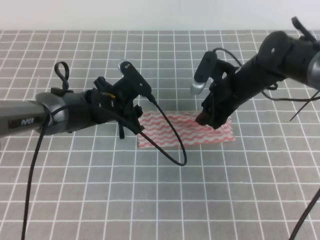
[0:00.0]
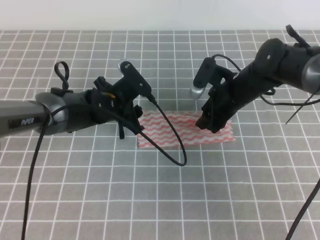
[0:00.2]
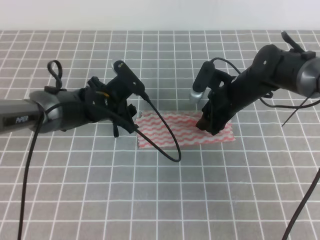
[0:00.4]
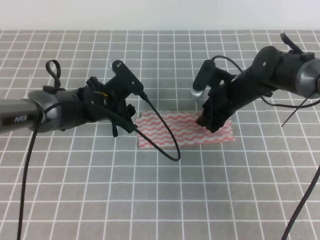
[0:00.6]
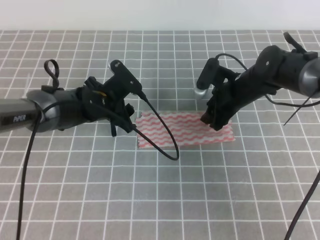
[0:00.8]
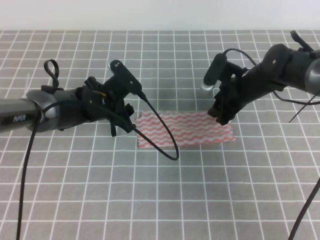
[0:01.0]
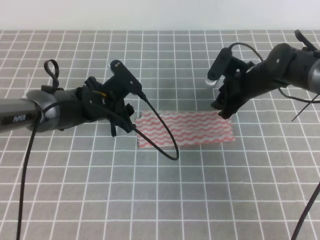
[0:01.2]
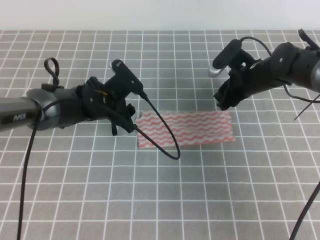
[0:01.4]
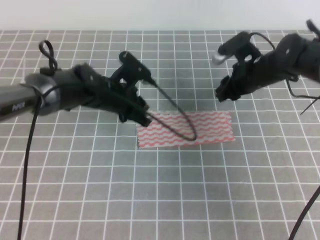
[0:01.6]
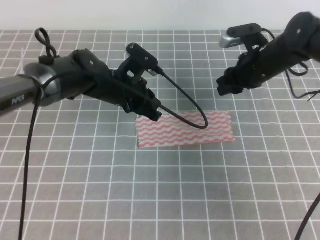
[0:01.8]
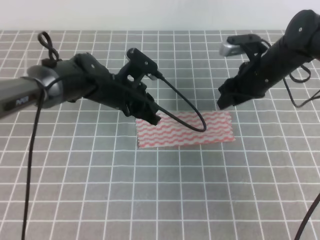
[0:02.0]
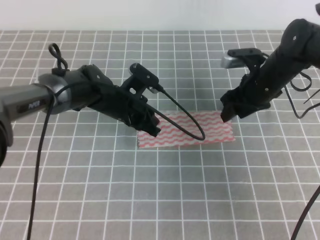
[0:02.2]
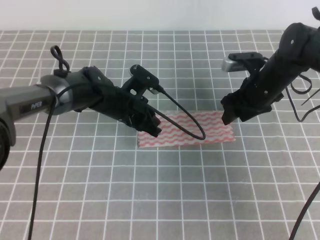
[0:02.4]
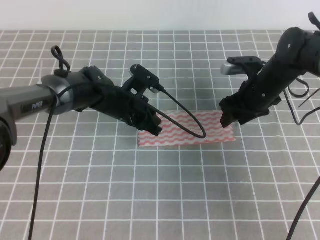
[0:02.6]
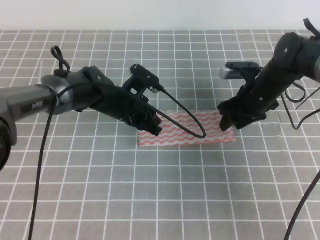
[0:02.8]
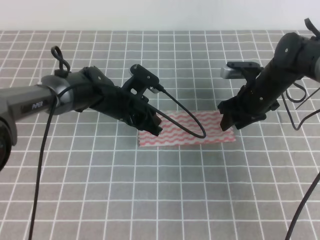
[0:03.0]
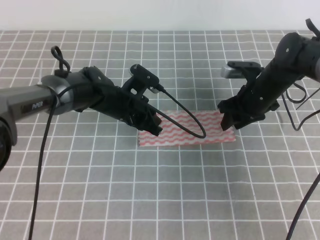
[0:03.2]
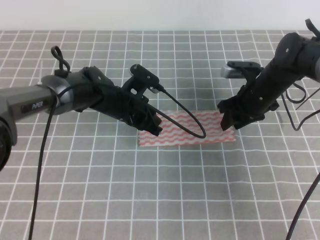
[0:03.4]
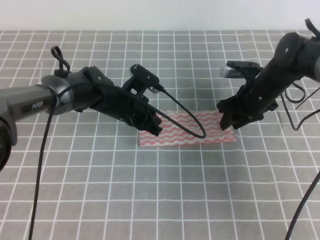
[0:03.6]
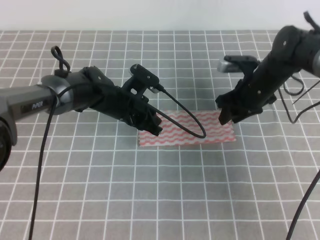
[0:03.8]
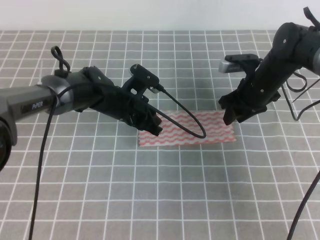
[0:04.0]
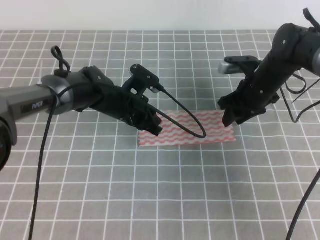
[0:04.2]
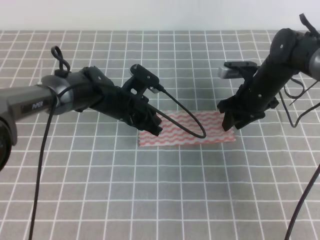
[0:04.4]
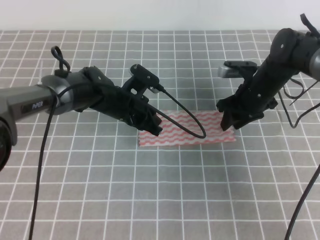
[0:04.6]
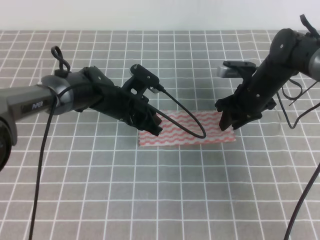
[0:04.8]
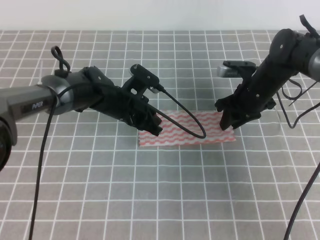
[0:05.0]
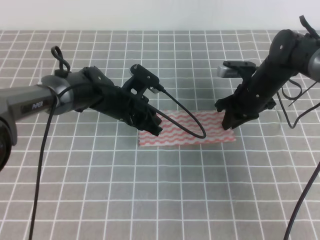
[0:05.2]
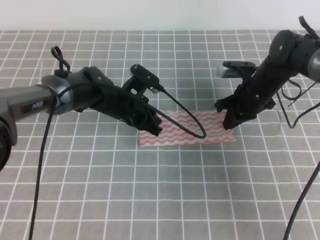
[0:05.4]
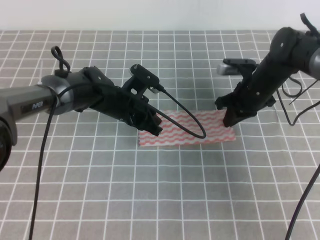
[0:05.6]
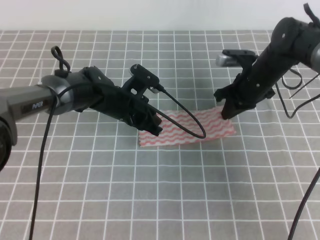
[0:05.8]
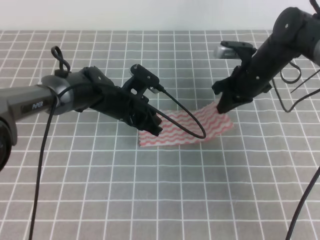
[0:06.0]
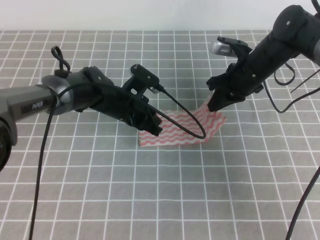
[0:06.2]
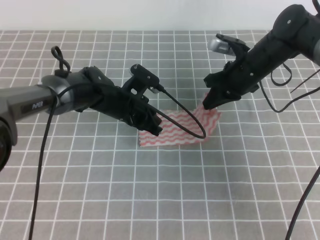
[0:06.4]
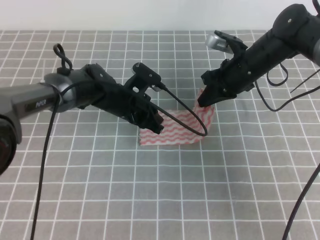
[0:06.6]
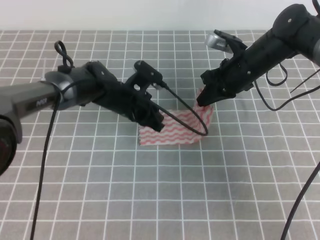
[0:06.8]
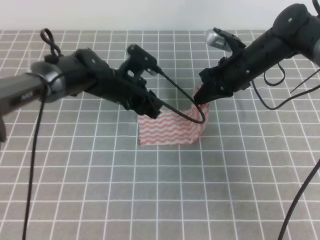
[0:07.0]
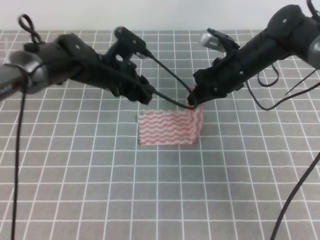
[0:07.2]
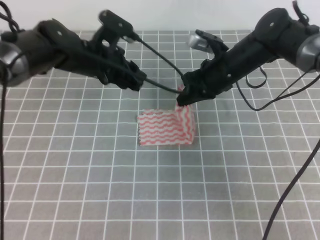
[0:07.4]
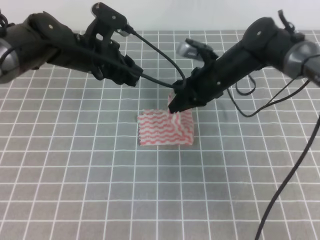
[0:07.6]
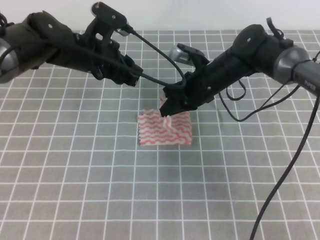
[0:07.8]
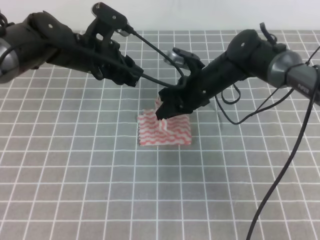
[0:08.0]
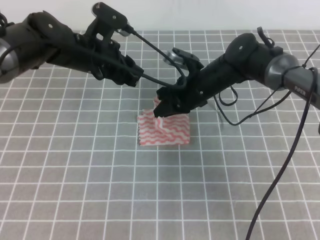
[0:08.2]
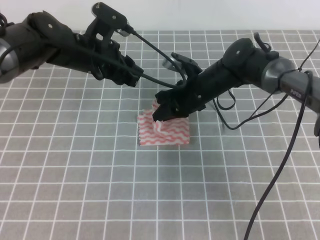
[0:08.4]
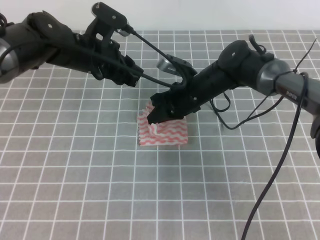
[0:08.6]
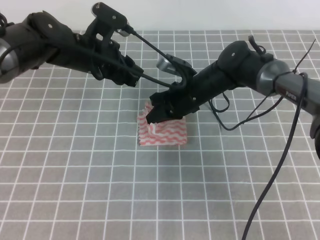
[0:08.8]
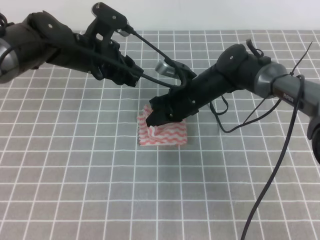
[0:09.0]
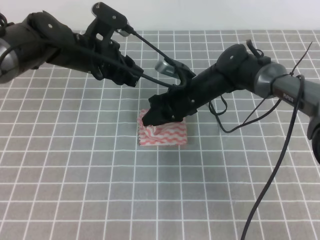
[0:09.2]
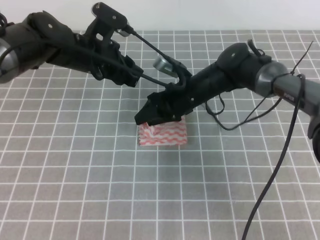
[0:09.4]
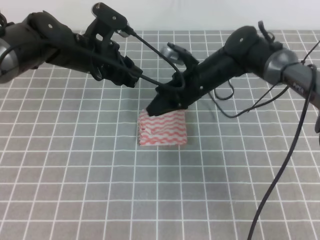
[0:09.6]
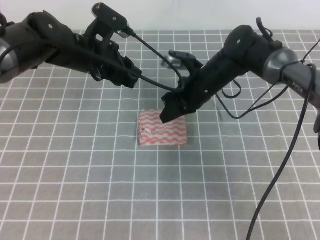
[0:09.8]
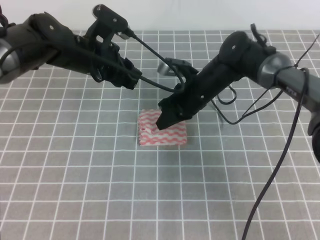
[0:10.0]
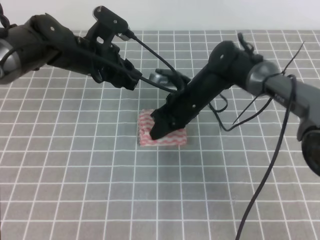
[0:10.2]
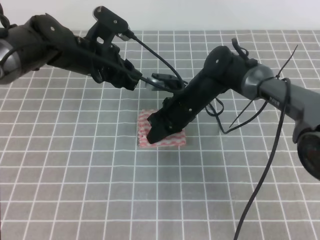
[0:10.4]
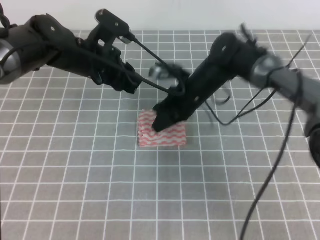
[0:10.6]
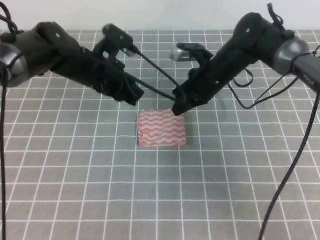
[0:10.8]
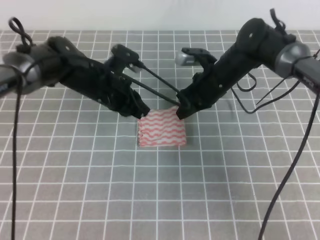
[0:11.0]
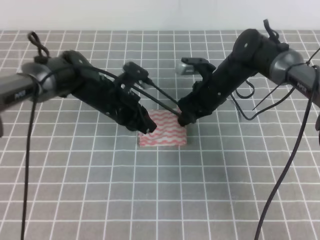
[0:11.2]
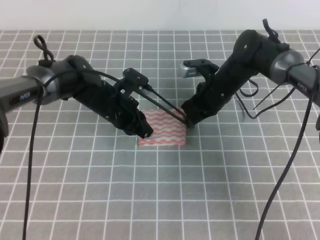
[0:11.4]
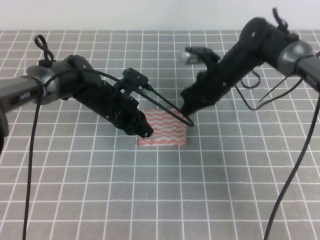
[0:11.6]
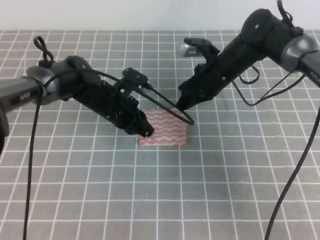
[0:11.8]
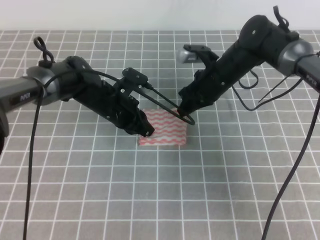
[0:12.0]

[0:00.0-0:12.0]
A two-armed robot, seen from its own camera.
0:00.0 to 0:01.6: The left gripper closes up; the right gripper moves about 5 cm.
0:03.0 to 0:04.4: The grippers move only a little.
0:04.4 to 0:06.0: The right gripper closes its fingers.
0:06.0 to 0:07.6: The right gripper travels to the left by roughly 5 cm. The left gripper heads upward, covering some 15 cm, and opens up.
0:07.6 to 0:09.0: The right gripper moves some 5 cm.
0:09.0 to 0:10.4: The right gripper opens, then closes once more.
0:10.4 to 0:12.0: The left gripper is displaced downward by approximately 10 cm, and closes up. The right gripper travels to the right by about 5 cm.

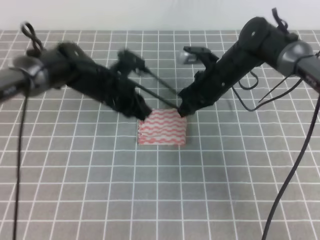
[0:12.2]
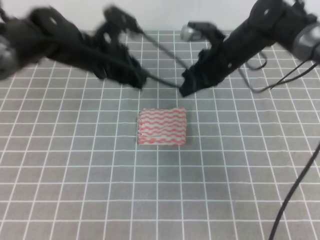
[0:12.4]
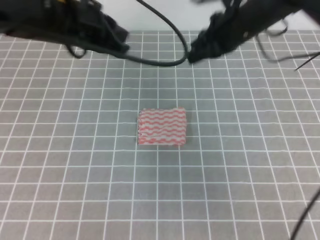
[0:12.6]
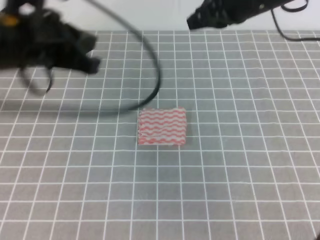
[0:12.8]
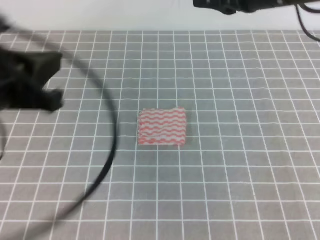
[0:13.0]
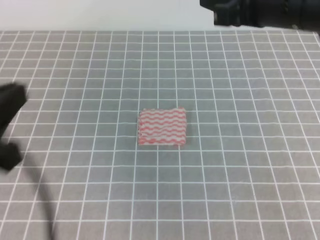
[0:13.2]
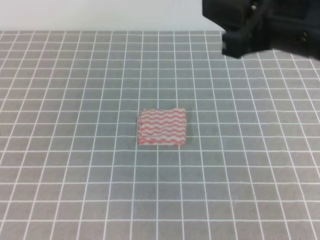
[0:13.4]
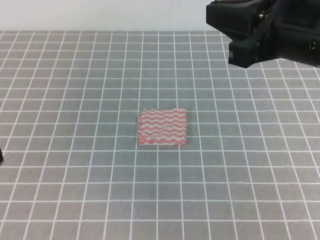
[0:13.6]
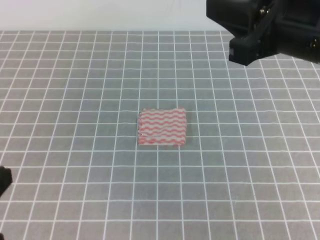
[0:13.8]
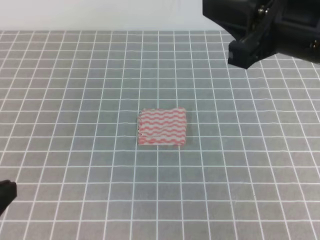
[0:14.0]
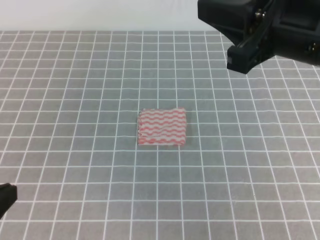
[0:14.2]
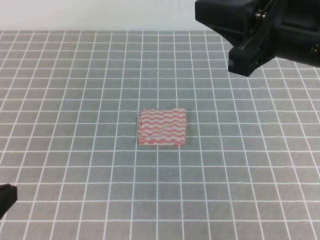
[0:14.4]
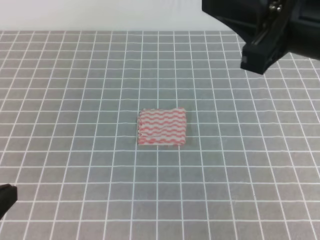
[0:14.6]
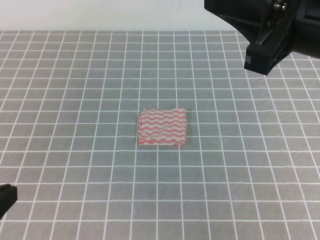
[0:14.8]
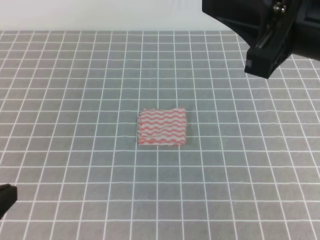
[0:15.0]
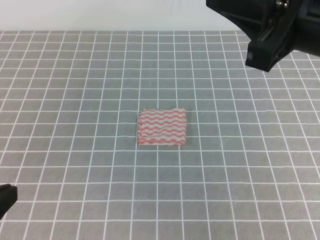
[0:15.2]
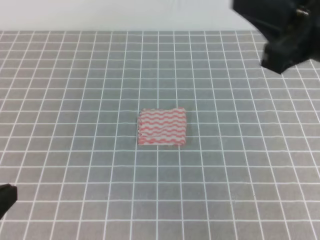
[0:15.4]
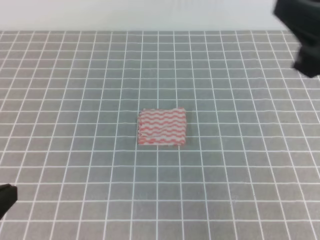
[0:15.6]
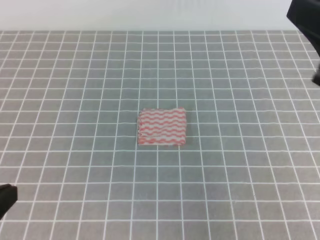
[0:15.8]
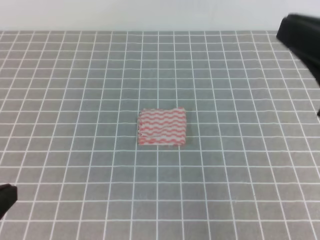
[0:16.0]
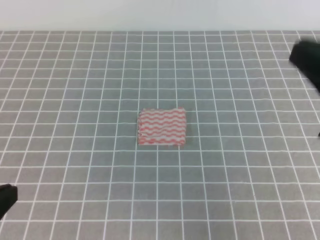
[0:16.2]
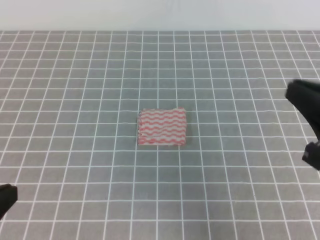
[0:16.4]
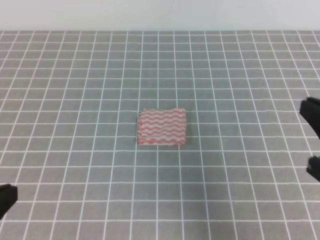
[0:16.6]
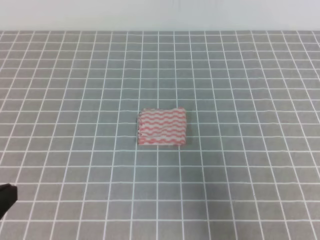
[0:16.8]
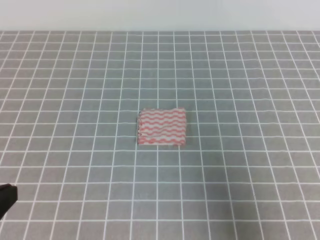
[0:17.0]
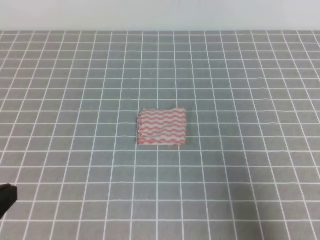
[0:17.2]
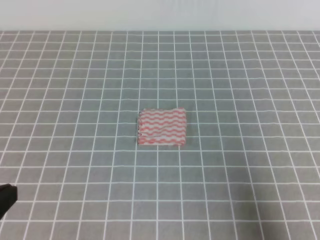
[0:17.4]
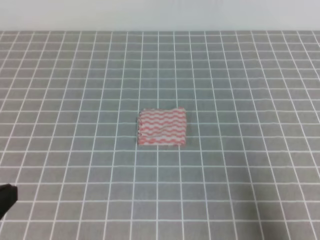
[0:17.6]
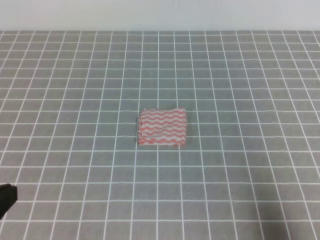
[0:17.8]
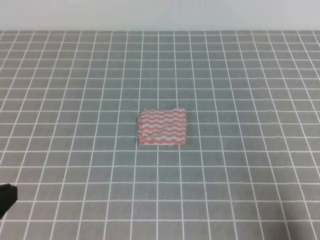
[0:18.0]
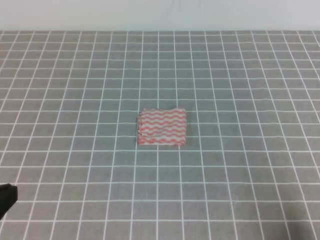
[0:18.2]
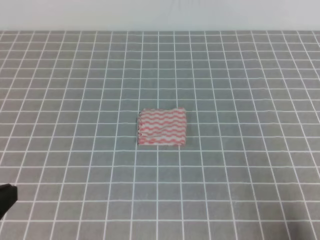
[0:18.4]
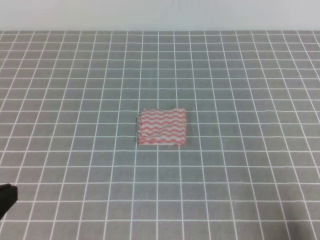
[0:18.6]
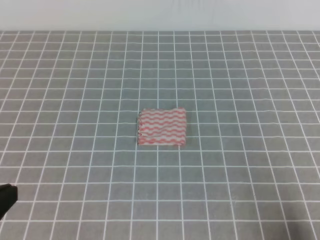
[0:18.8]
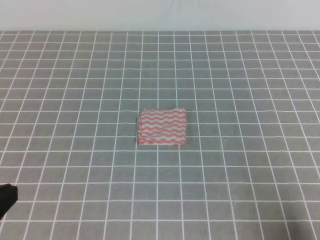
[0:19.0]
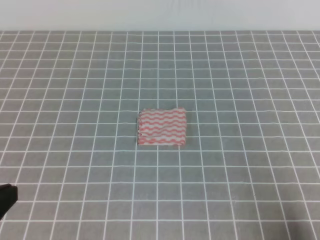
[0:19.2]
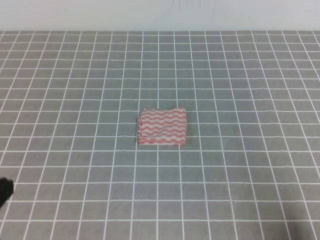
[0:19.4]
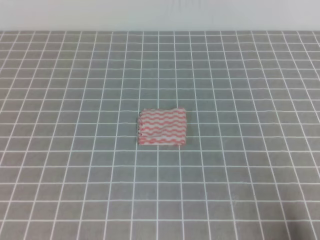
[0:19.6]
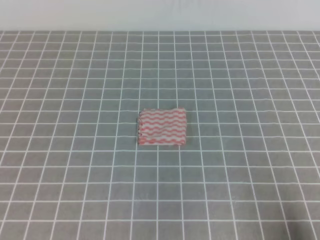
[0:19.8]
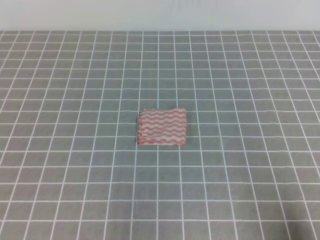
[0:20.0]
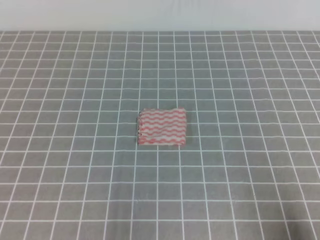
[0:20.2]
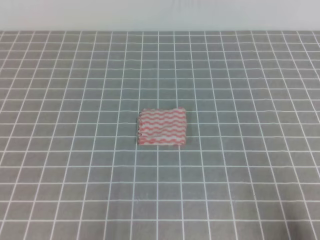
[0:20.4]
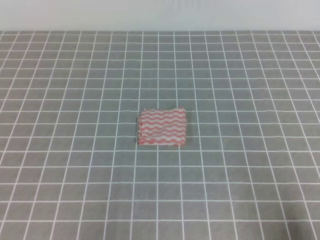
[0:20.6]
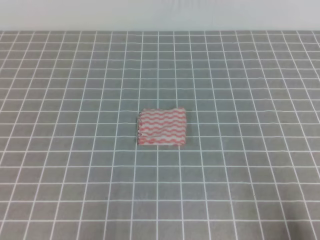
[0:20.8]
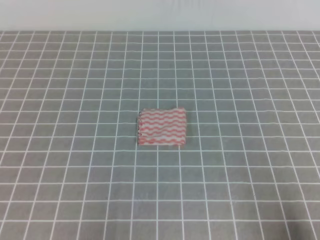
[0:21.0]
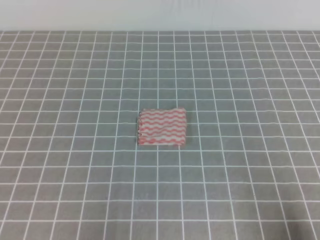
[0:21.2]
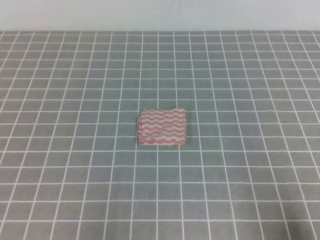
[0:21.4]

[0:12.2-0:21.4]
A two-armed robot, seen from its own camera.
0:12.2 to 0:13.8: The right gripper goes roughly 30 cm backward and upward. Meanwhile the left gripper moves backward and to the left, roughly 35 cm.
0:13.8 to 0:15.2: The grippers move only a little.
0:15.2 to 0:16.8: The right gripper goes approximately 15 cm downward, to the right and backward.
0:16.8 to 0:18.4: The right gripper is displaced downward, backward and to the right by roughly 15 cm.
